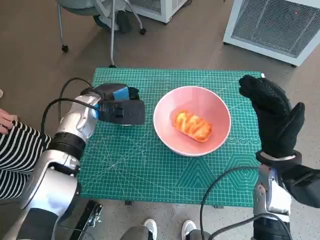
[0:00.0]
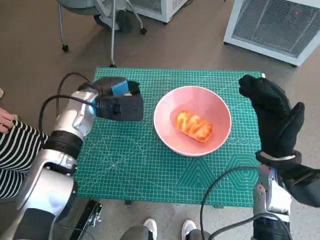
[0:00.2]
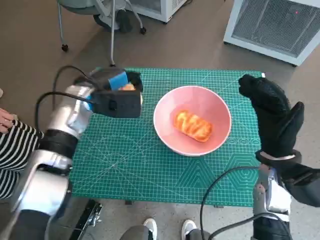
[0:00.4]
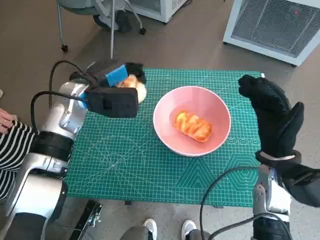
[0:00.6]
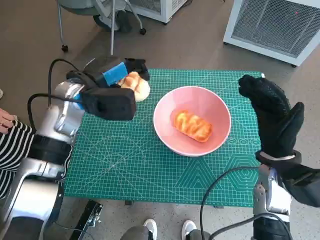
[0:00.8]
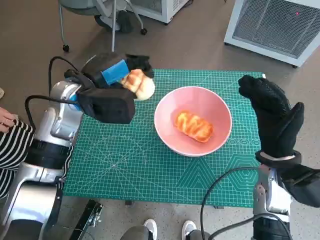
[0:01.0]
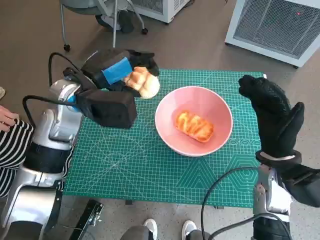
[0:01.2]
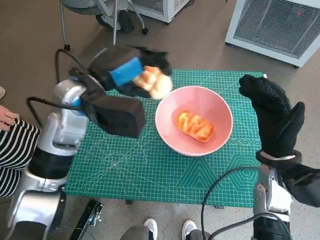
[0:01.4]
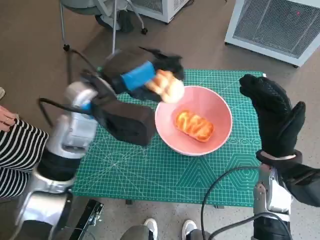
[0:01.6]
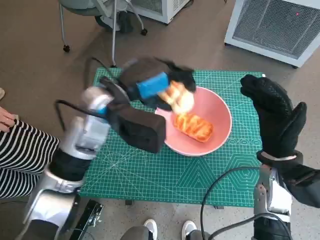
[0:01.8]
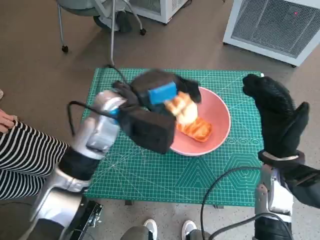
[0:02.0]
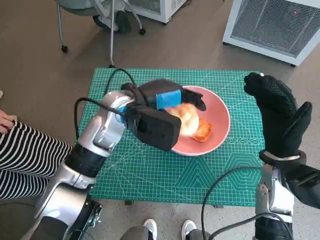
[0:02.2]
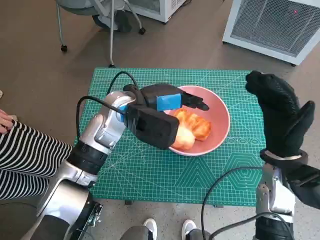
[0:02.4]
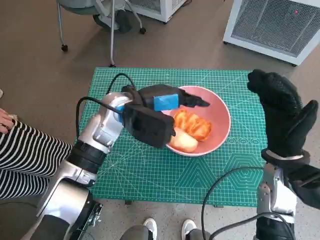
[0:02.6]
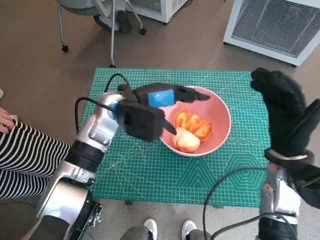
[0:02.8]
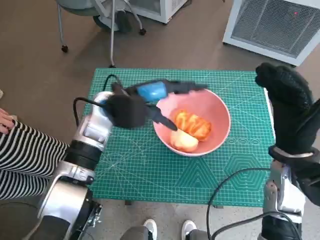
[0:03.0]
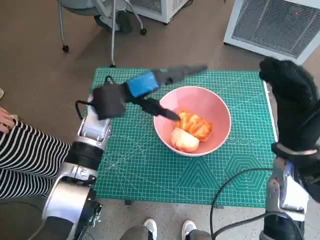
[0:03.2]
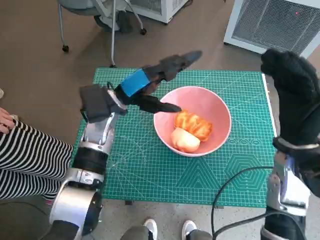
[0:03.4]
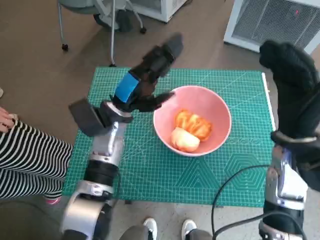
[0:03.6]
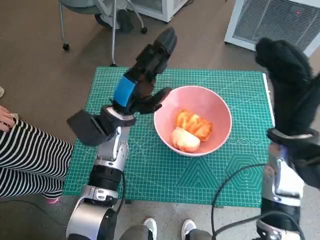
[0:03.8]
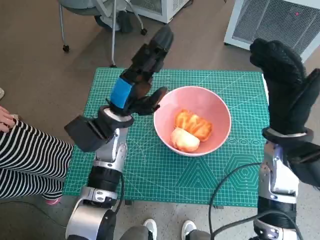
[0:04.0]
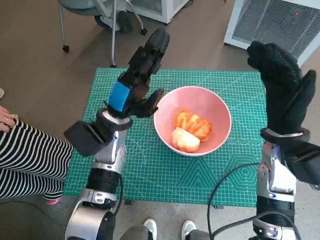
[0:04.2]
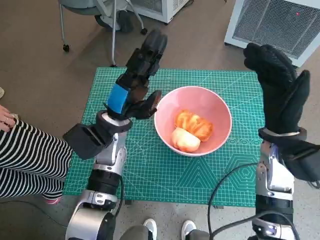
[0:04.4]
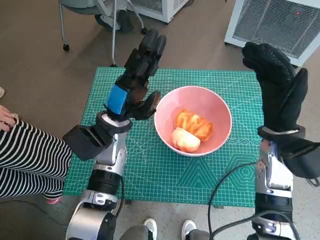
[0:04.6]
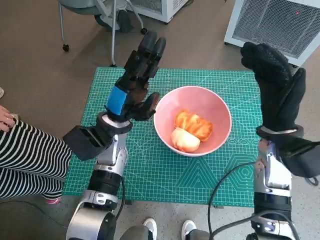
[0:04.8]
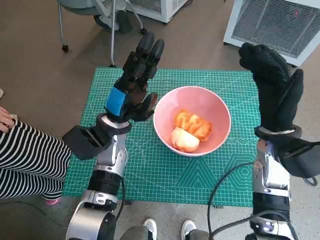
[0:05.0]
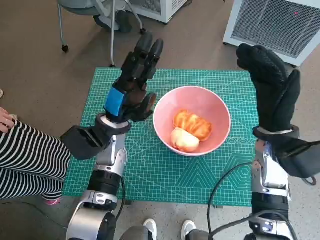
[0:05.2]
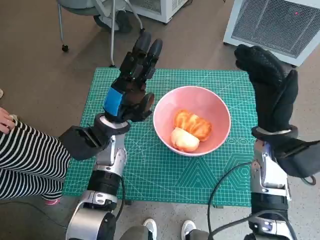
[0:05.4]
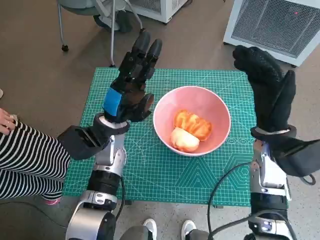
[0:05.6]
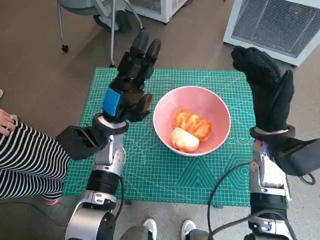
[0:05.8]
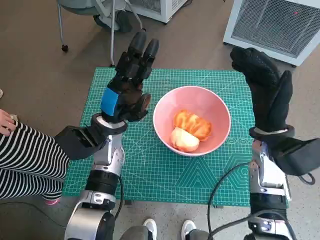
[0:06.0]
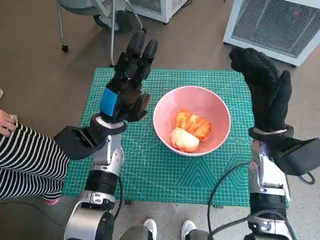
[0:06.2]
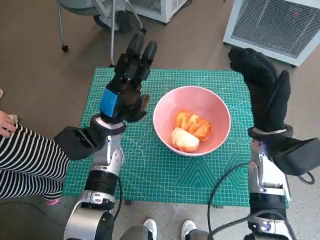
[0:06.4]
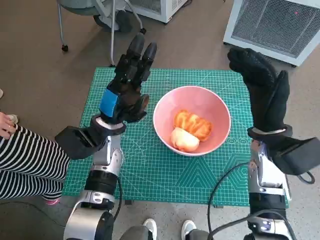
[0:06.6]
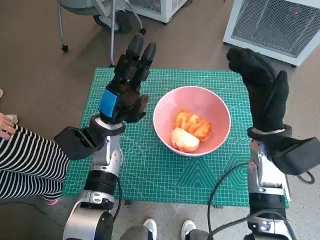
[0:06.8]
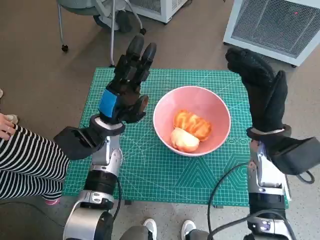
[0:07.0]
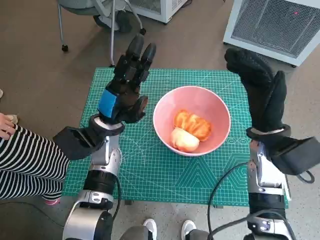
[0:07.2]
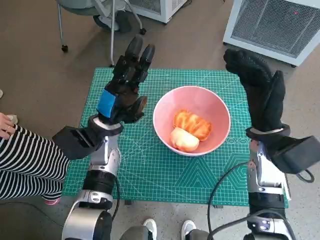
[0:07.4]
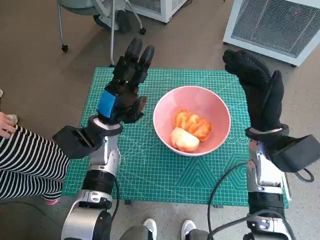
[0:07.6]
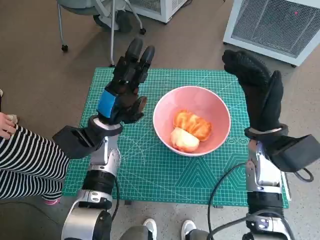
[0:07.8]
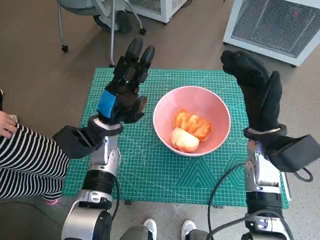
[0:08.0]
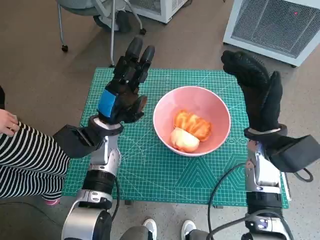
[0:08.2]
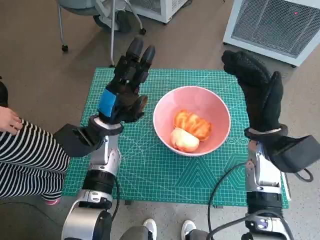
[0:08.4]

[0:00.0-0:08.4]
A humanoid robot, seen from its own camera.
Task of the whole recording: Push the bowl into the center of the table and put the bread into the bowl.
Step, 0:00.0 to 0:03.0: Place the round bread in pink bowl with left hand.
0:00.0 to 0:01.4: The left hand travels upward by some 10 cm.
0:01.4 to 0:02.8: The left hand goes roughly 5 cm downward.
0:02.8 to 0:04.2: The left hand shifts by some 5 cm.
0:04.2 to 0:05.6: The hands make only small movements.
0:05.6 to 0:07.0: Both hands stay put.
0:07.0 to 0:08.4: Both hands stay about where they are.

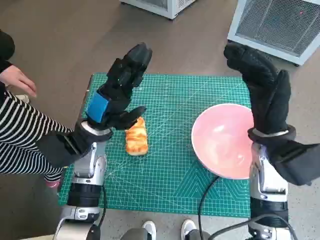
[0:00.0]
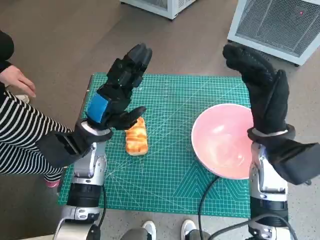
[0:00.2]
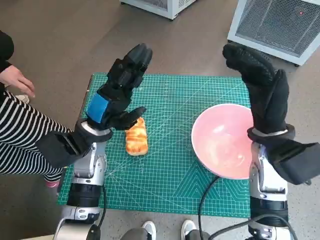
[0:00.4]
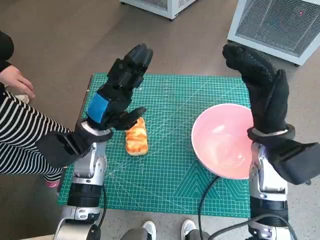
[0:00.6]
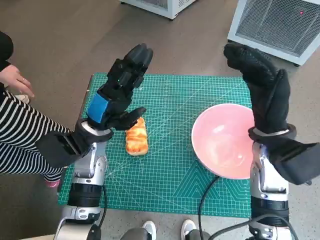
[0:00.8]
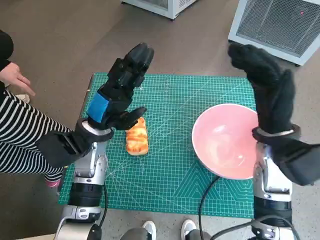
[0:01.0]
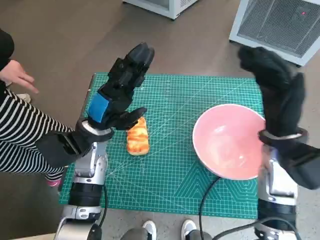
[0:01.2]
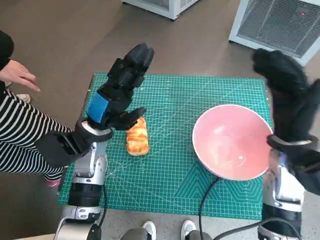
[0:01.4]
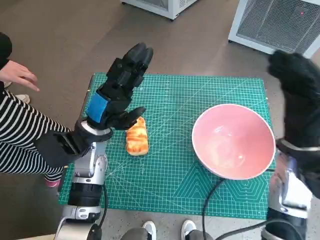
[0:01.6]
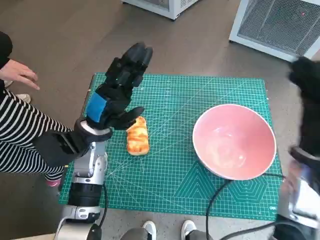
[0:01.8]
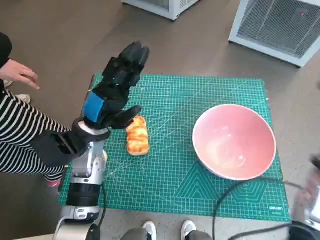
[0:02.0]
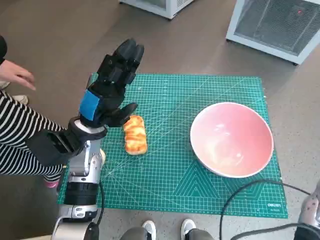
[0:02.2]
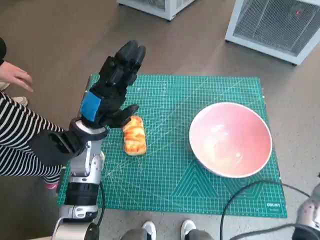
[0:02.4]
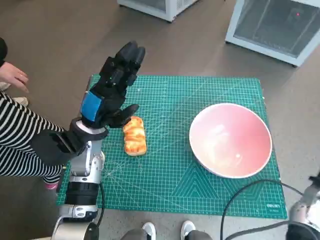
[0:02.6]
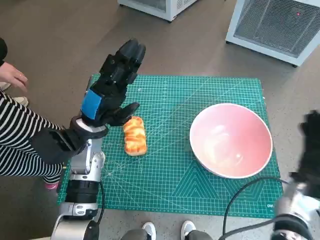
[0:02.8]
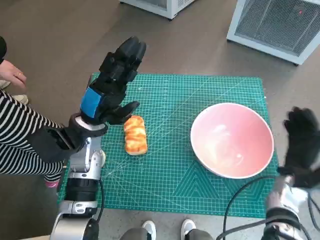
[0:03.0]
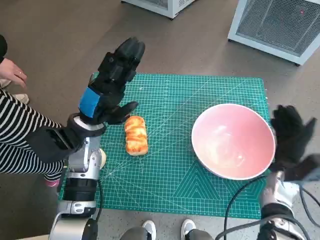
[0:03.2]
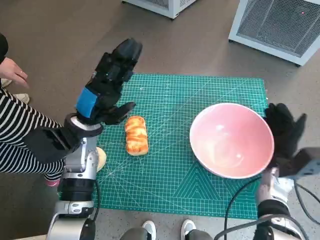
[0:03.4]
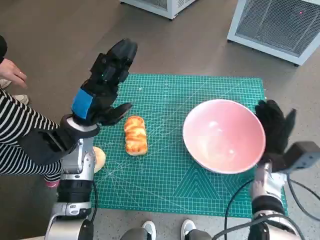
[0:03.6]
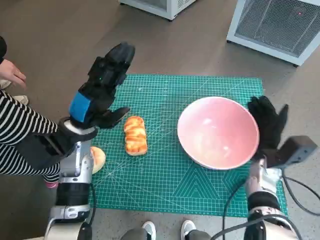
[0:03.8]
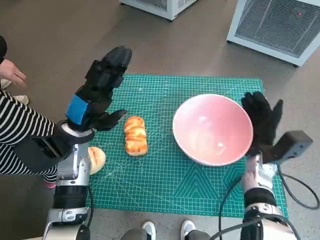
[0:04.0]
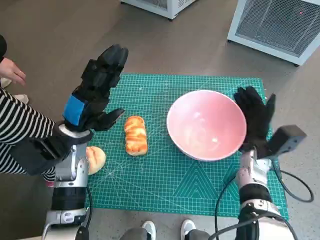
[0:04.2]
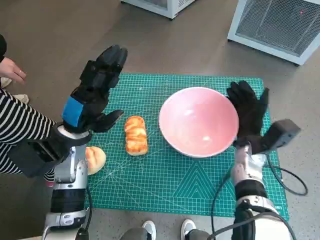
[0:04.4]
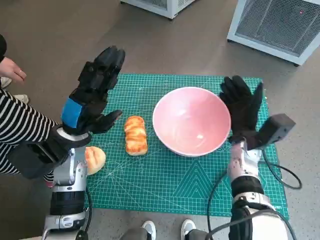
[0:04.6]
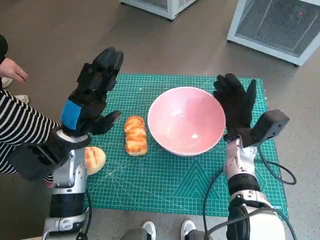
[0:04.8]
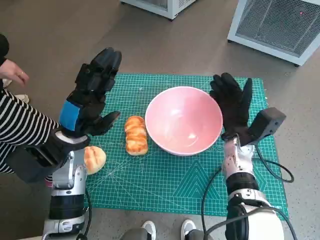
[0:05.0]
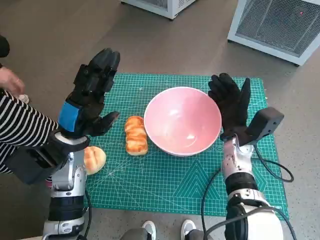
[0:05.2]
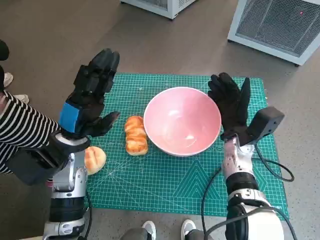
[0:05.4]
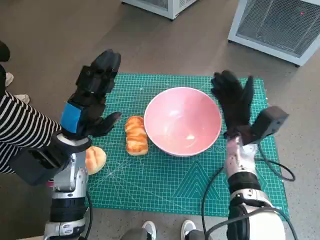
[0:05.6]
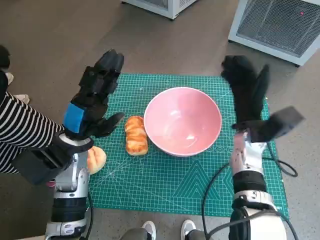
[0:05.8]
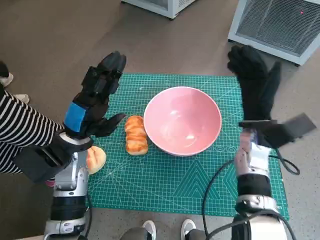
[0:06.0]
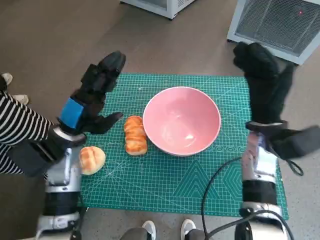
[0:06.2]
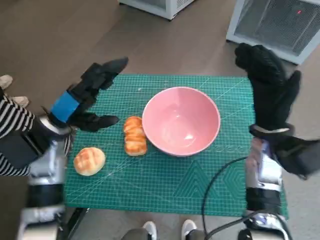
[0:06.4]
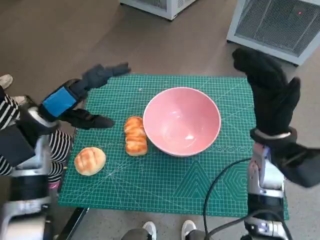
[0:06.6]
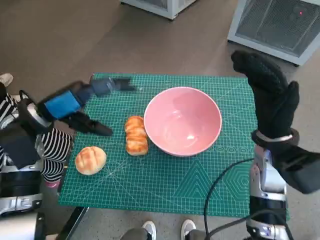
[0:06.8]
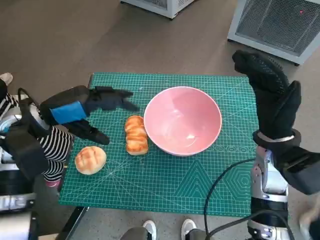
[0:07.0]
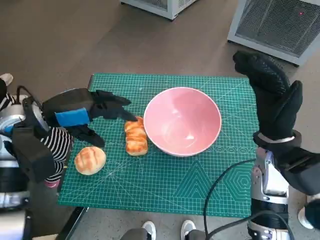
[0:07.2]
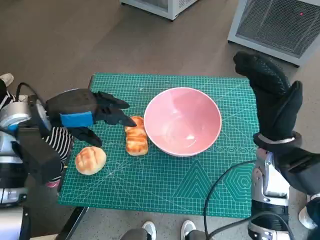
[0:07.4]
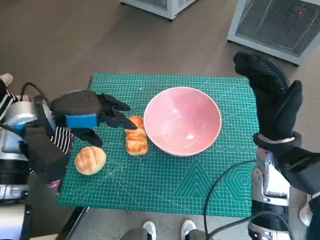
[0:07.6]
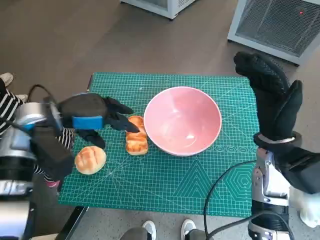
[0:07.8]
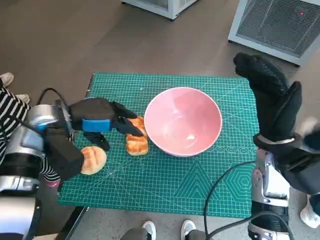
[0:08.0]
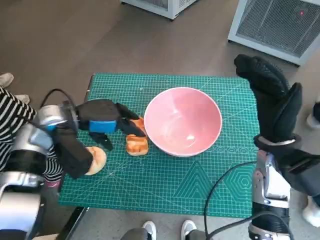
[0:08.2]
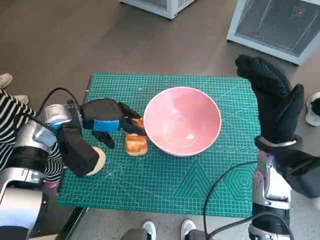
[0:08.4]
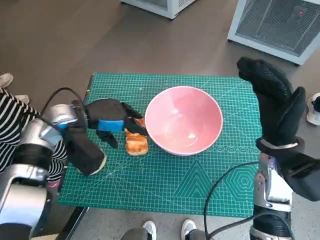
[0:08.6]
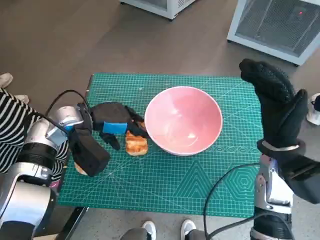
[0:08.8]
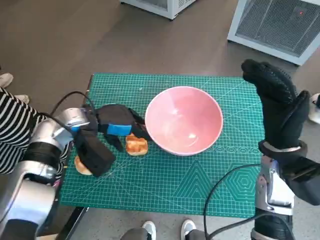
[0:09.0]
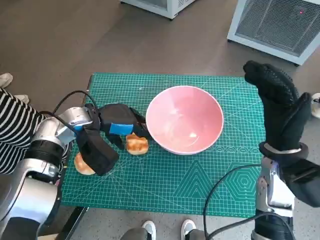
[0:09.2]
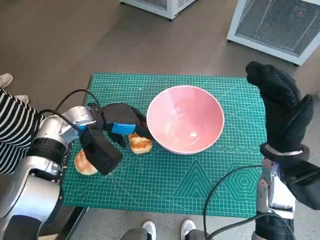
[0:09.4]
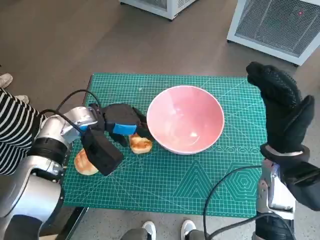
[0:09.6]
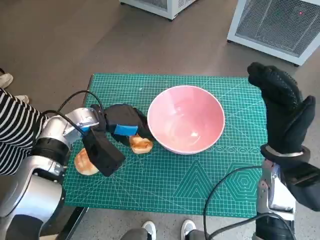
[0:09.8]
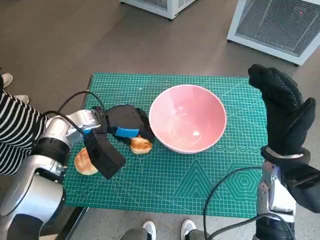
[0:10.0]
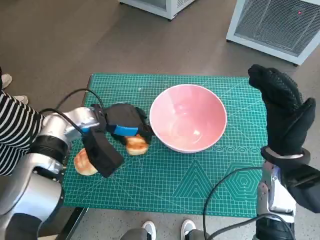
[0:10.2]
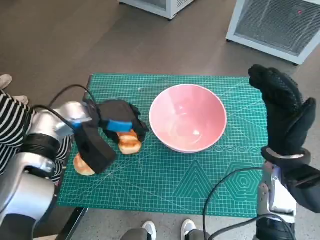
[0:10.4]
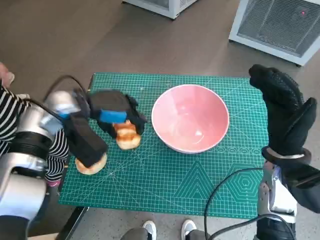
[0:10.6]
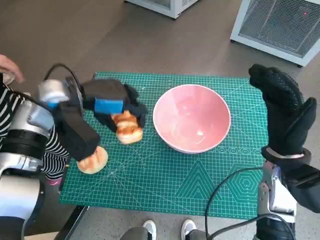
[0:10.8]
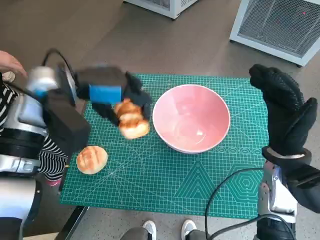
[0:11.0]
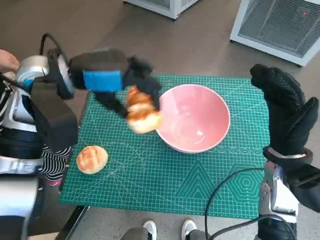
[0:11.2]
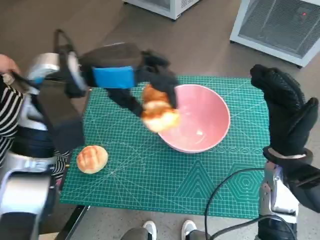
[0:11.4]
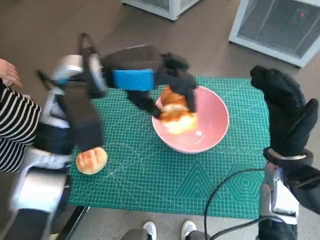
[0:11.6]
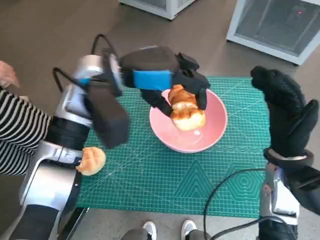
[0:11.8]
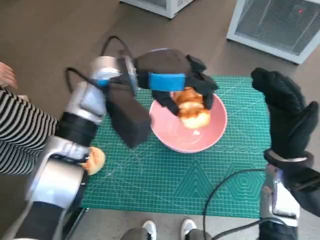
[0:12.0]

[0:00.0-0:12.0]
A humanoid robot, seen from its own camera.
Task of the whole recording: Push the bowl into the center of the table and put the bread into the bowl.
Step, 0:00.0 to 0:05.6: Move the pink bowl to the center of table with right hand.
Step, 0:05.8 to 0:10.2: Grasp the long bread with left hand.
0:01.6 to 0:03.0: The right hand goes approximately 15 cm downward and to the right.
0:03.0 to 0:04.4: The right hand travels to the left and forward by some 10 cm.
0:04.4 to 0:06.0: The right hand shifts about 5 cm upward.
0:06.0 to 0:07.6: The left hand travels upward by about 10 cm, while the right hand goes about 5 cm backward.
0:07.6 to 0:09.0: The left hand heads downward, covering roughly 5 cm.
0:09.0 to 0:10.4: The hands make only small movements.
0:10.4 to 0:12.0: The left hand shifts about 15 cm upward and to the right.

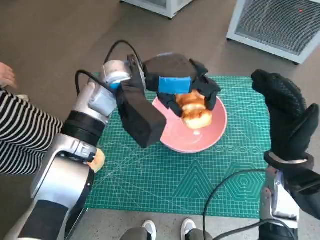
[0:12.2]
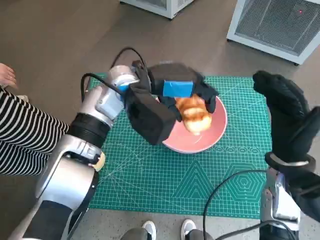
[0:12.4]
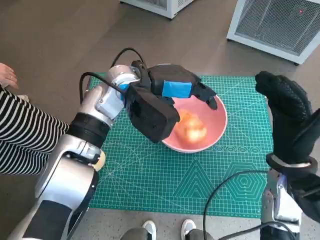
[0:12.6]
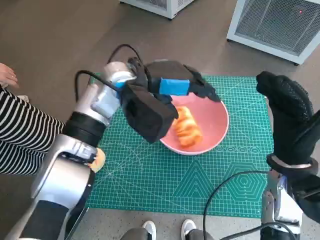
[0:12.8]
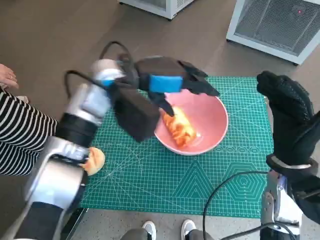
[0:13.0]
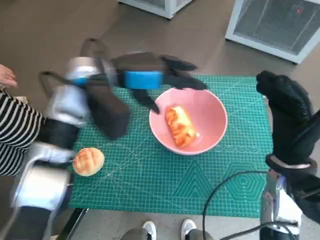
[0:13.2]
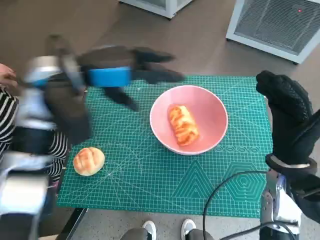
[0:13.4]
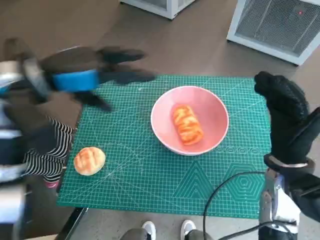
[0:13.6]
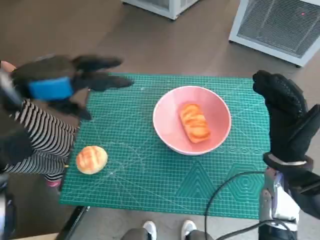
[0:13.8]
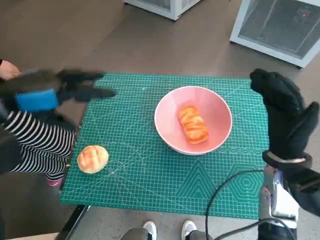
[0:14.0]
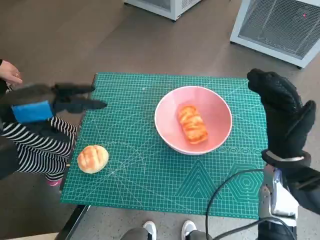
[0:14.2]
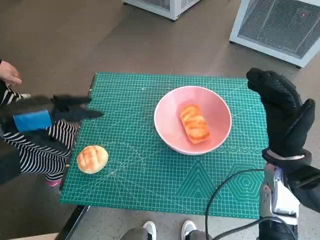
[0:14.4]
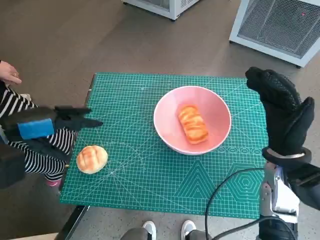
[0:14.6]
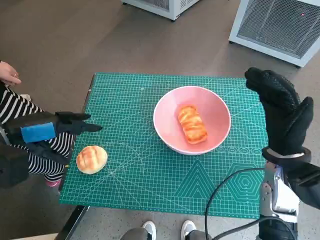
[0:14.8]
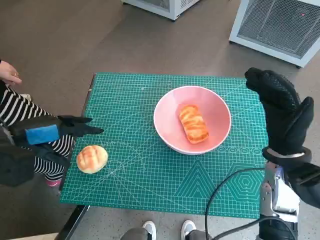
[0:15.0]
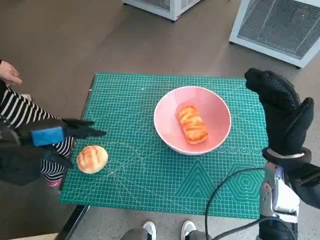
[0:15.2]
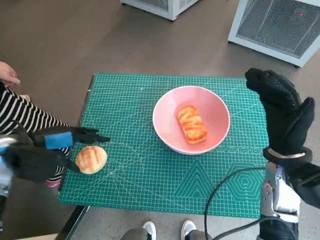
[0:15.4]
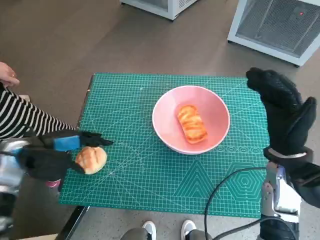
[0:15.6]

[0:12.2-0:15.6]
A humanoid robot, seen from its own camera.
Task of the whole recording: Push the bowl into the center of the table and put the bread into the bowl.
0:12.2 to 0:13.8: The left hand travels to the left by about 15 cm.
0:13.8 to 0:15.6: The left hand moves downward, some 15 cm.
